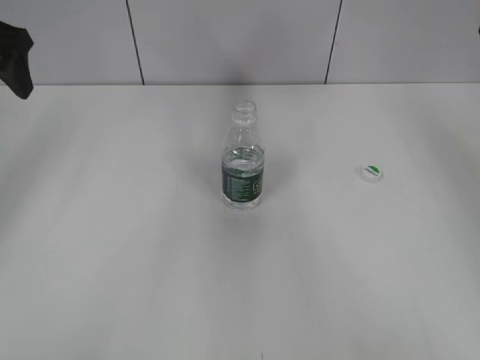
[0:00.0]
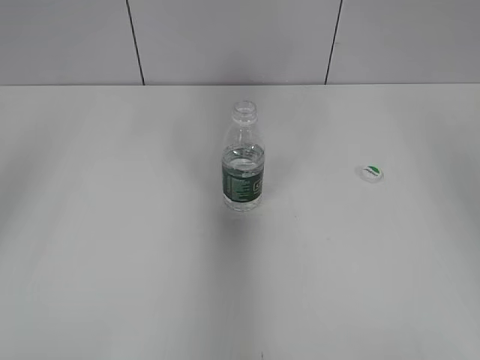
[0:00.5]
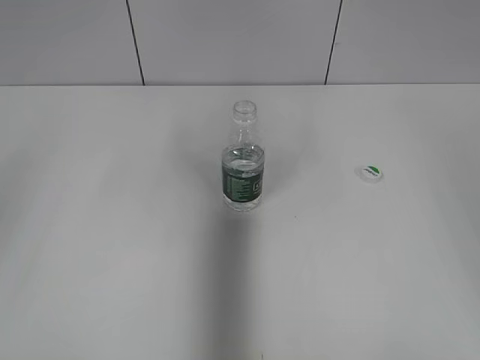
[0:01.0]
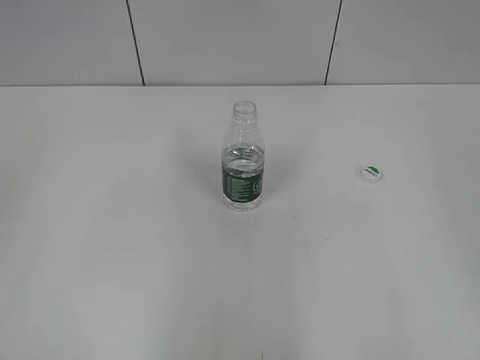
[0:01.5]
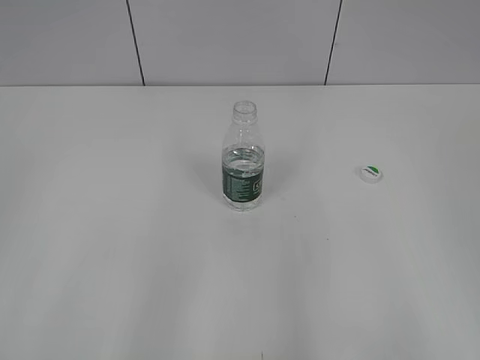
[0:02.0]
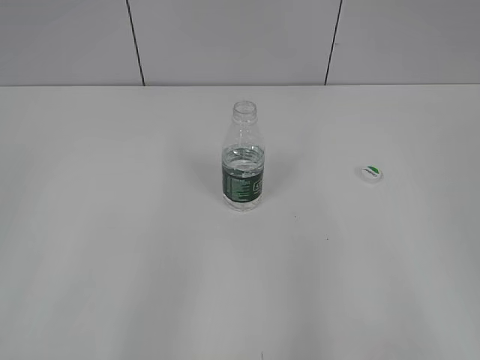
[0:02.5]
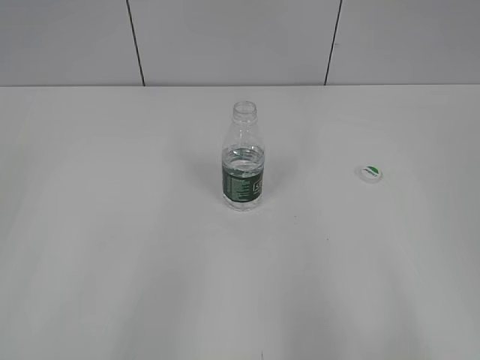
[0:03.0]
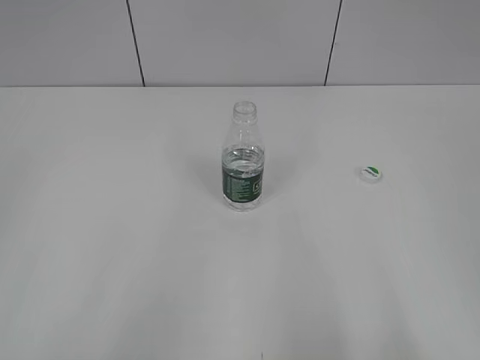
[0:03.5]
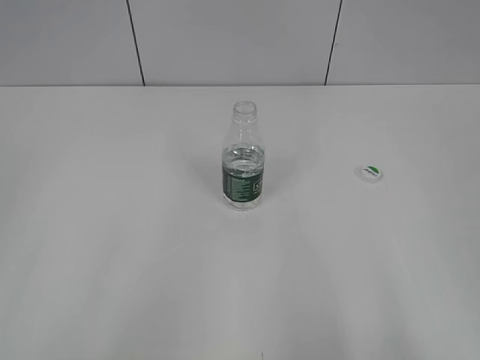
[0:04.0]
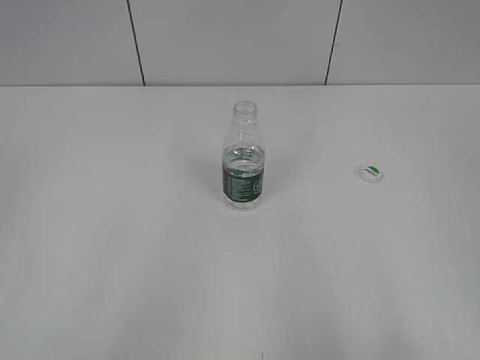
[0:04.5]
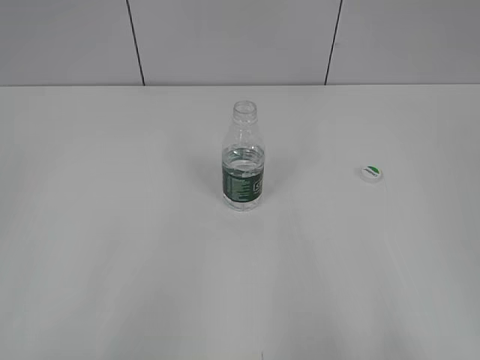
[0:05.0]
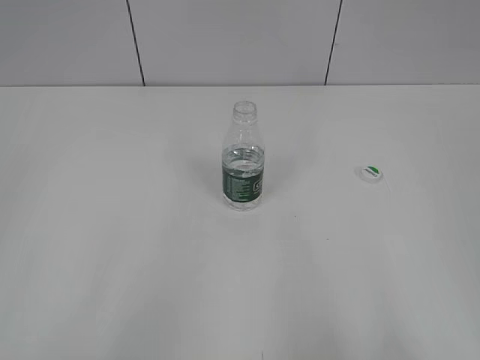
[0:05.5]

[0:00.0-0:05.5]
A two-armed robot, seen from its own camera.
0:00.0 to 0:02.0: The grippers both shift backward by roughly 35 cm.
0:03.5 to 0:05.5: The two grippers keep their place.

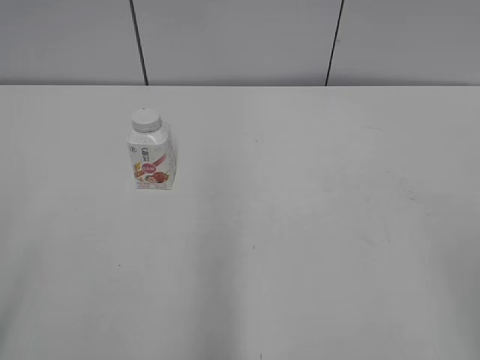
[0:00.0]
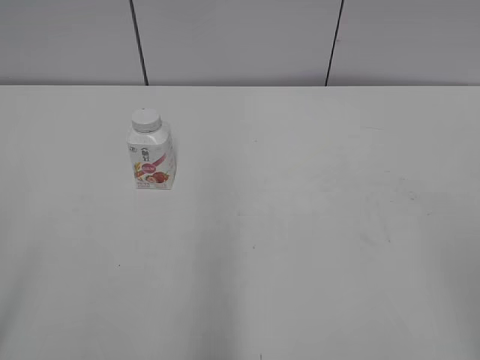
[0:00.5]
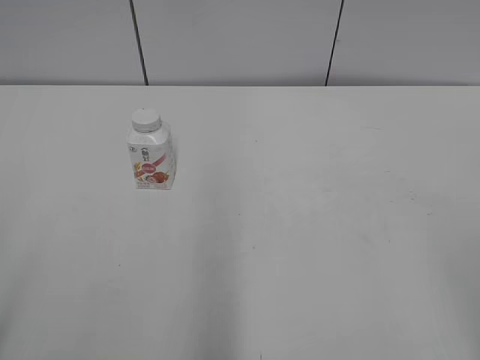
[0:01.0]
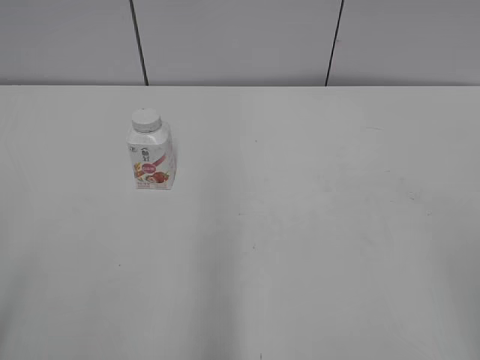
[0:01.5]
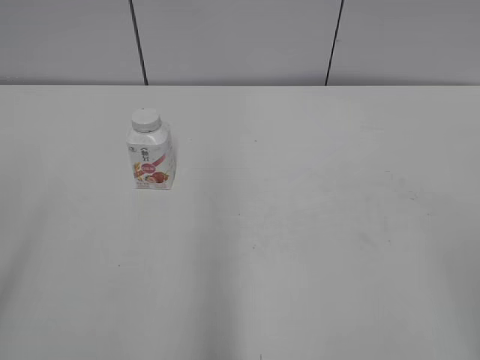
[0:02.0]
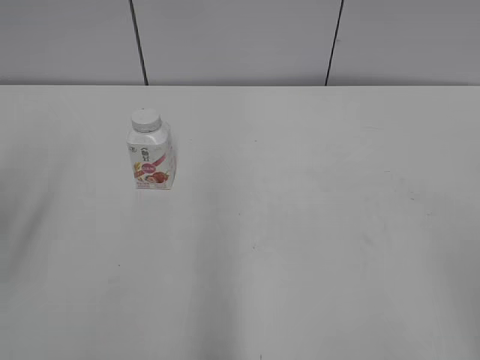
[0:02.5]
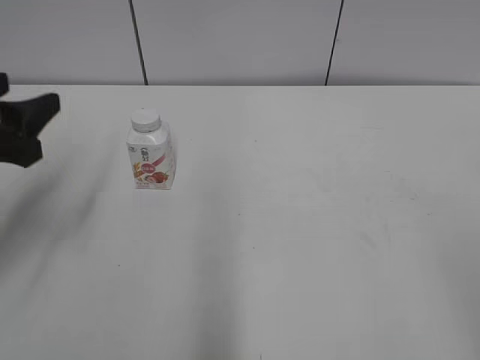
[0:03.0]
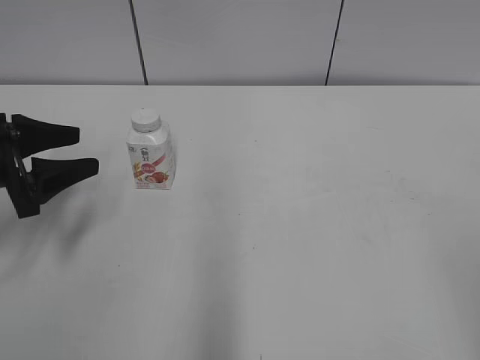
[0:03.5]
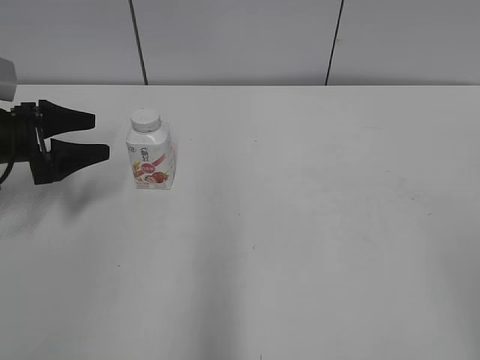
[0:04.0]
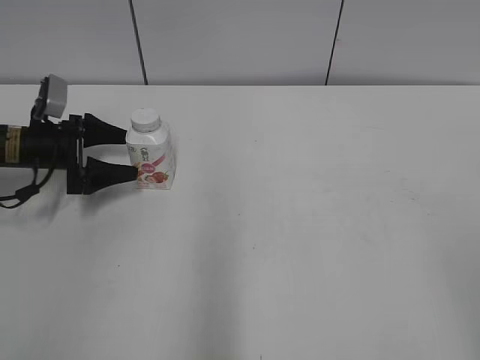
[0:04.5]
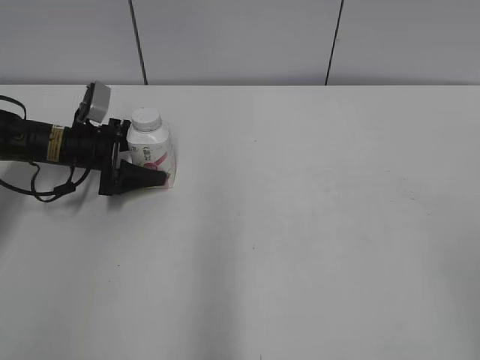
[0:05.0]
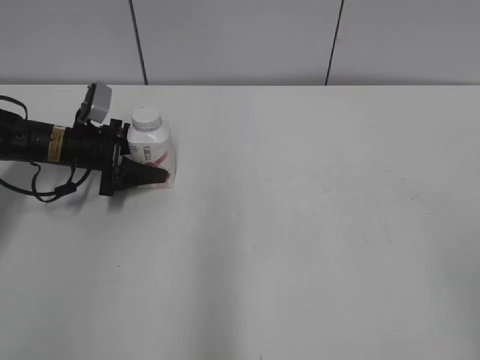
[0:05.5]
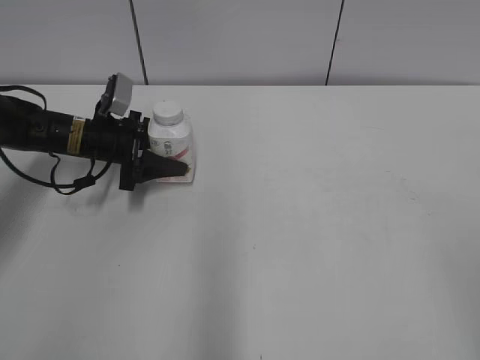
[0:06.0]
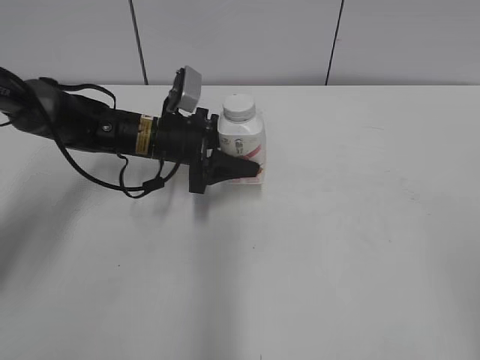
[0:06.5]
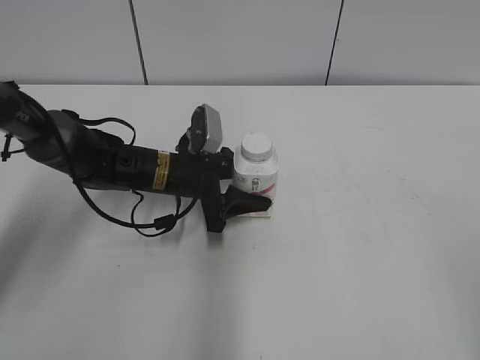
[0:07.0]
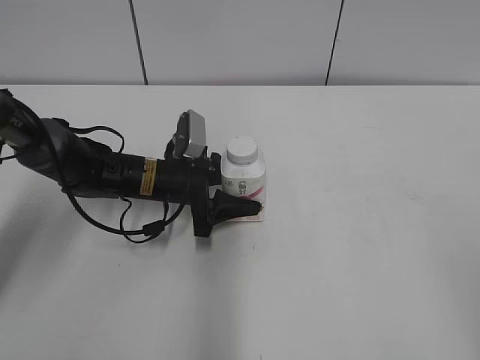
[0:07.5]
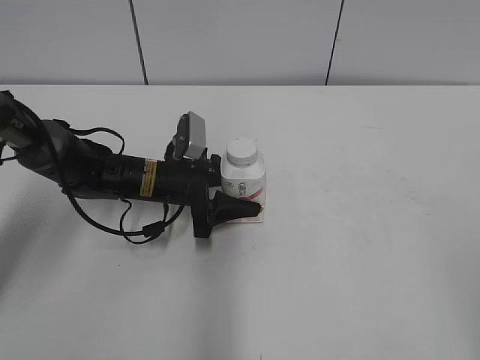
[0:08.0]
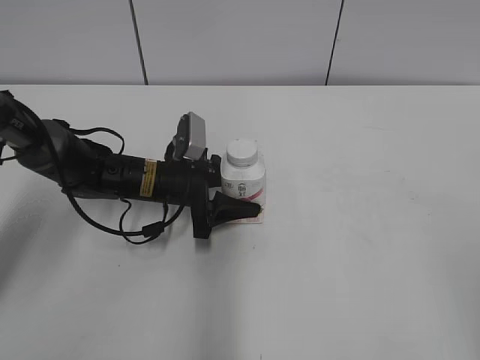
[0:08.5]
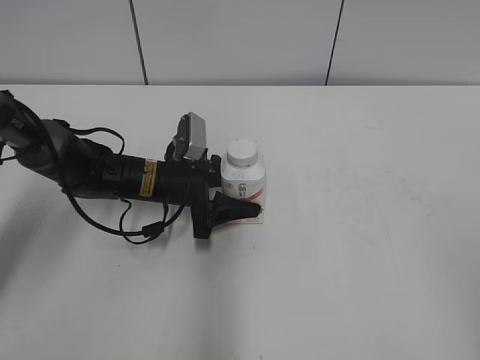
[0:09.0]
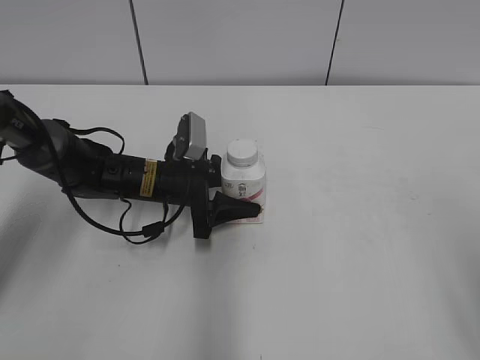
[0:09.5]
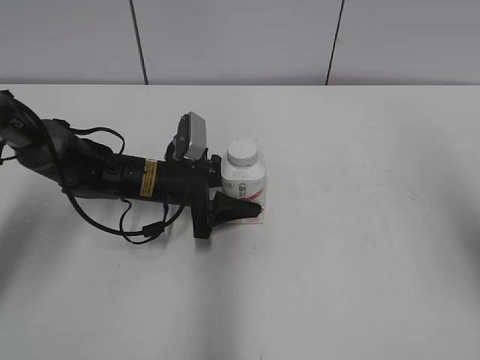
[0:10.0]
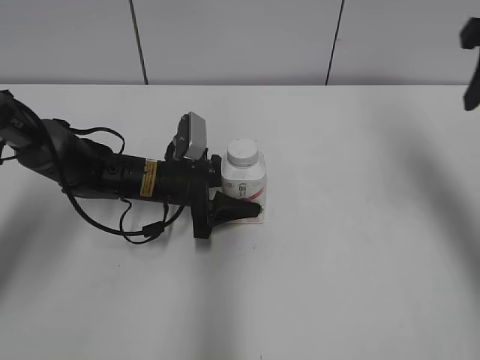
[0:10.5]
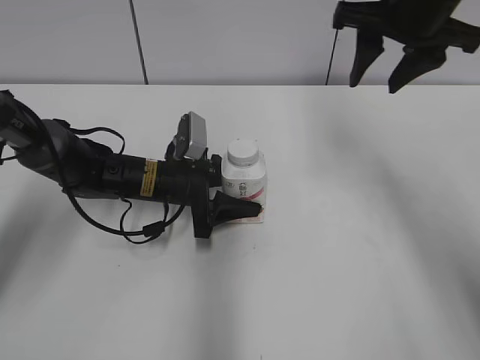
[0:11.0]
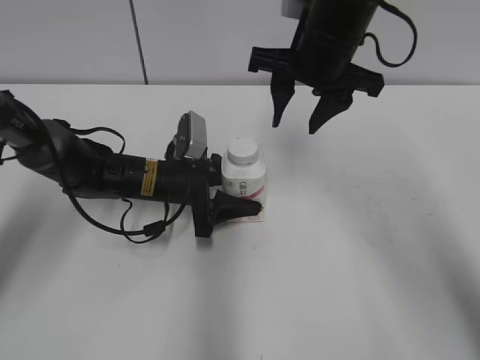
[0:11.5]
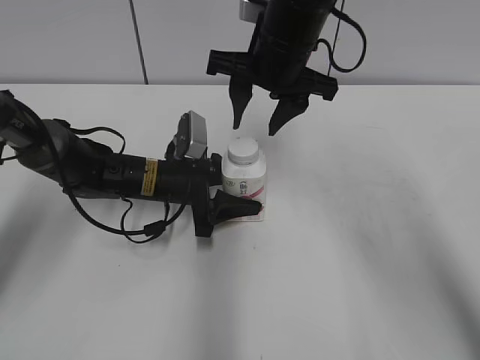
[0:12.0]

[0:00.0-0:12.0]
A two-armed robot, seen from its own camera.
Step, 0:00.0 to 0:05.5: Grab the Yili Changqing with the left hand.
Step, 0:06.0 to 0:09.0: Move the Yili Changqing from left to right.
0:02.0 to 0:04.0: The left gripper heads forward and downward, covering approximately 40 cm.
0:04.0 to 0:06.0: The left gripper is displaced to the right and forward by roughly 10 cm, and closes its fingers.
0:06.0 to 0:08.0: The left gripper is displaced to the right and backward by about 10 cm.
0:08.0 to 0:10.0: The right gripper travels forward by roughly 15 cm, and closes.
0:10.0 to 0:12.0: The right gripper travels to the left and forward by approximately 30 cm.

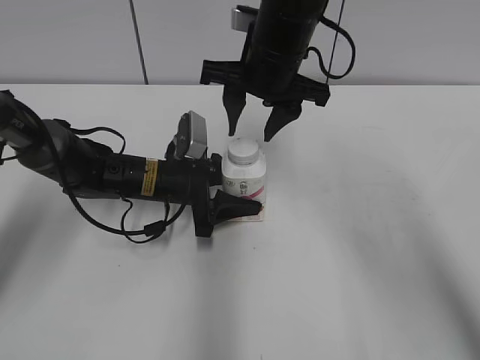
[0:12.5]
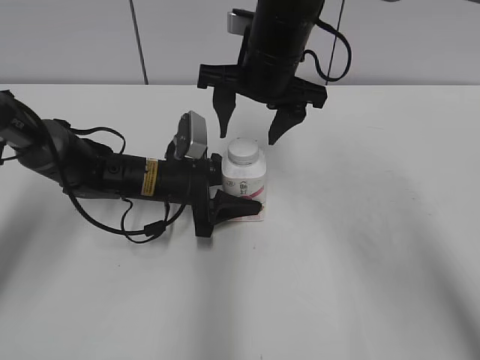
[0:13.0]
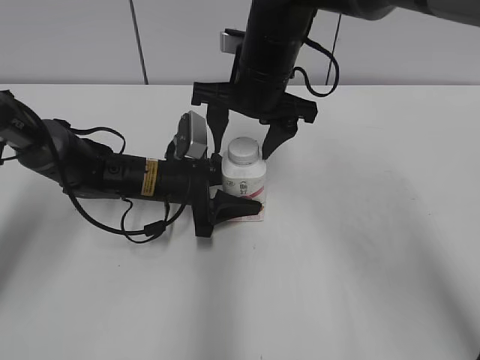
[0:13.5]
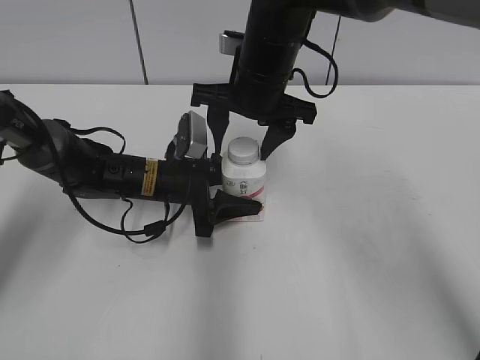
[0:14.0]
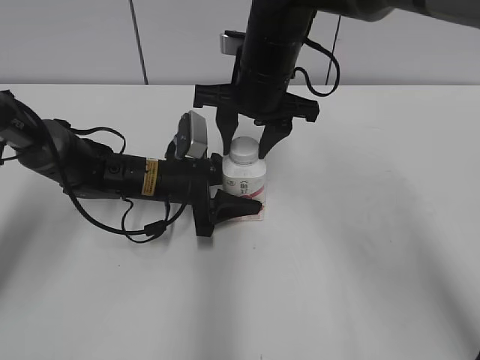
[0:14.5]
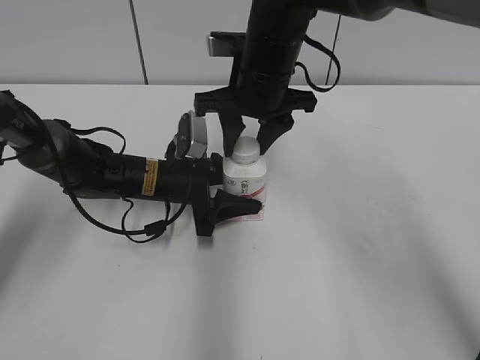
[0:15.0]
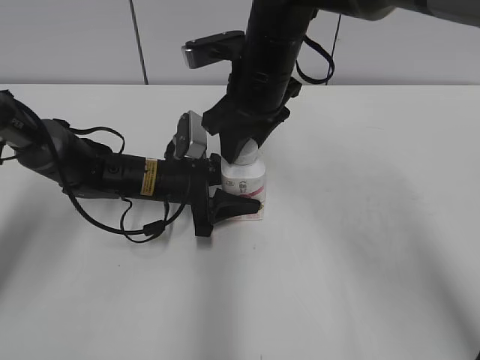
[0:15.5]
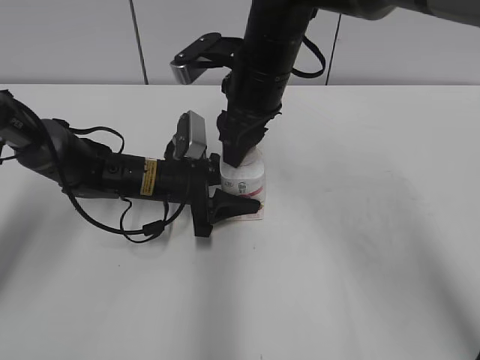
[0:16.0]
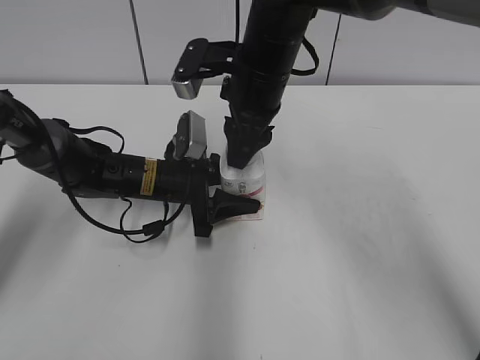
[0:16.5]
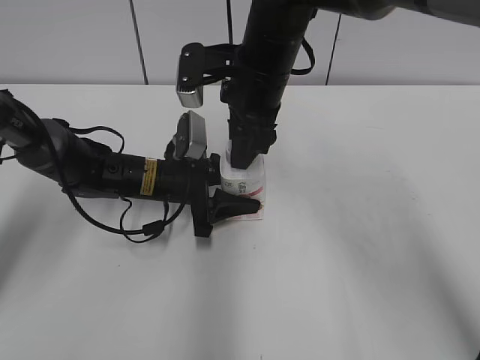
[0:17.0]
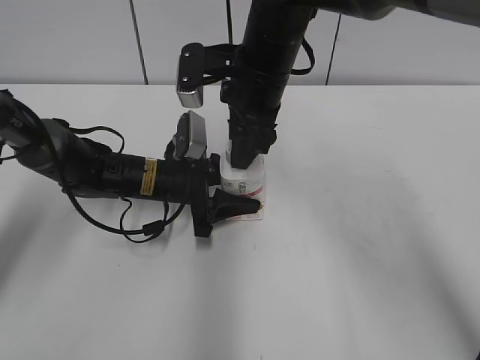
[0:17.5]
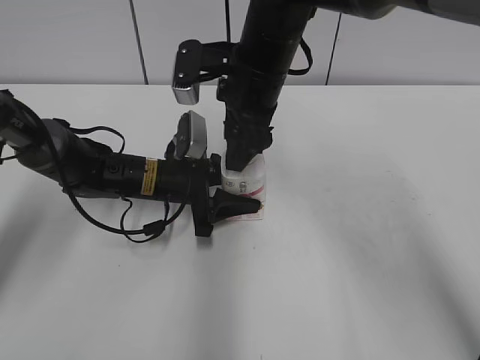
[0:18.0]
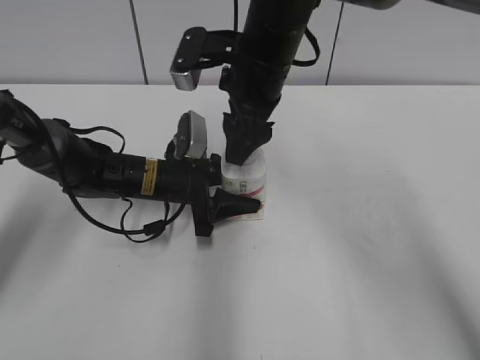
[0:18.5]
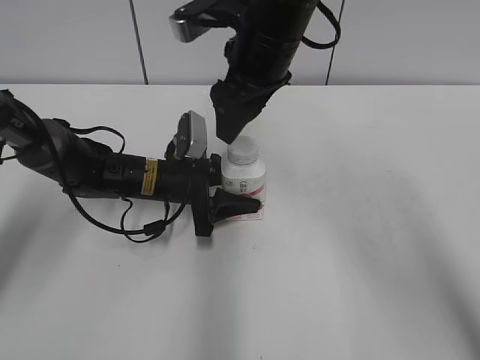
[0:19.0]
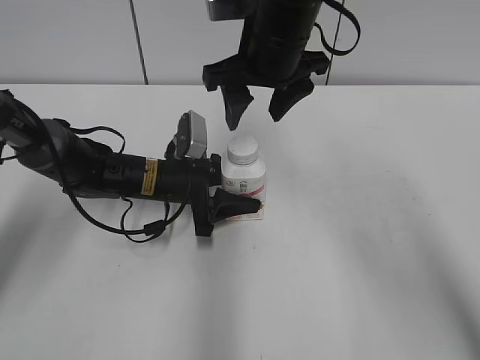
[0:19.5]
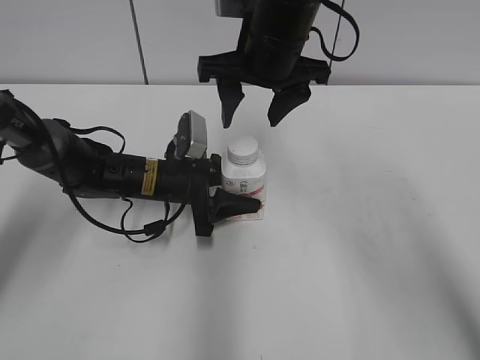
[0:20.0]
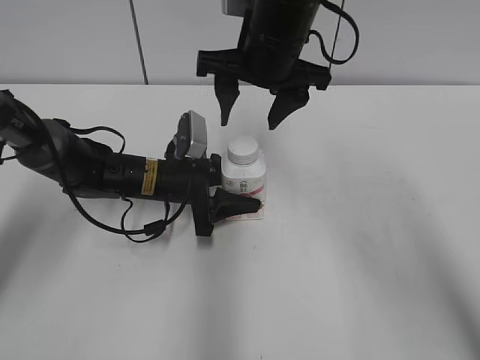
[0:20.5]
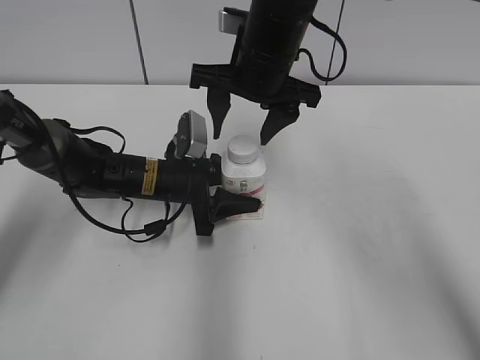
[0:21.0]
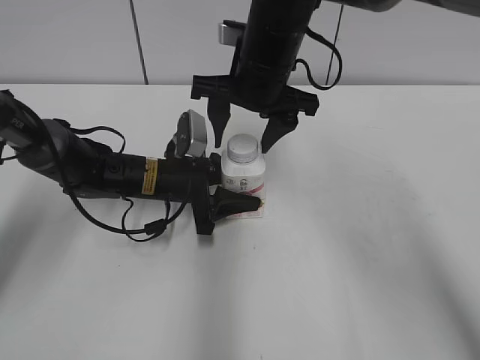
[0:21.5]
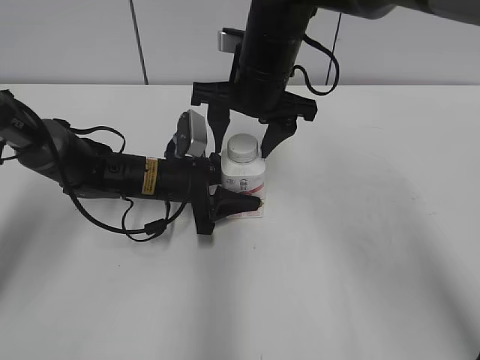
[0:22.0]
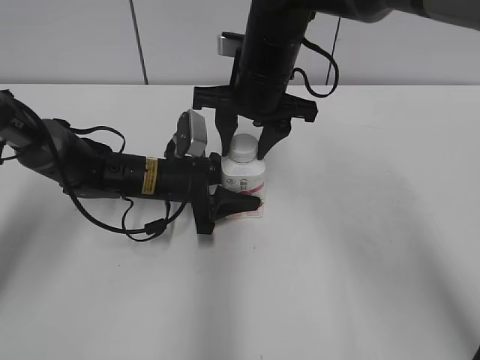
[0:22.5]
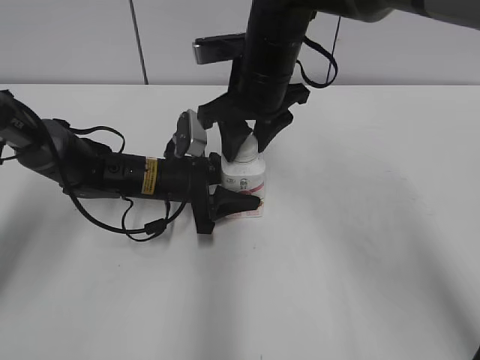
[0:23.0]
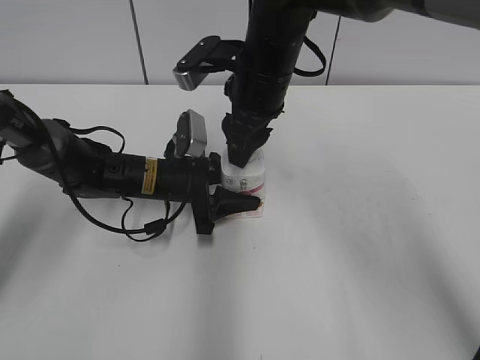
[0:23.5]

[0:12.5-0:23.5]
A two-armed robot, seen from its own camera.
0:12.5 to 0:14.5: The right gripper opens, then closes again.
0:16.0 to 0:18.0: The right gripper opens up.
0:18.0 to 0:20.0: The right gripper opens.
0:20.0 to 0:21.5: The grippers stay close to where they were, moving slightly.
0:21.5 to 0:23.5: The right gripper closes its fingers.
